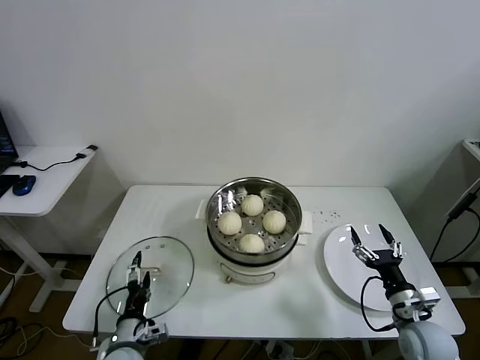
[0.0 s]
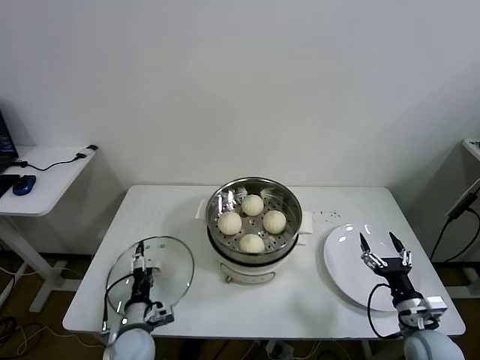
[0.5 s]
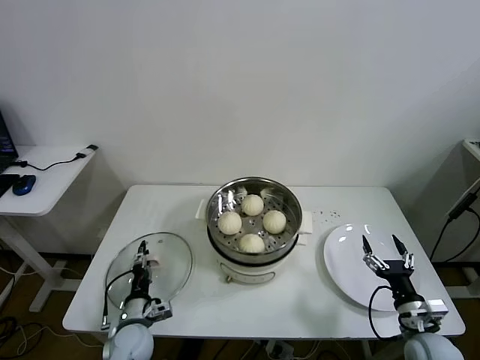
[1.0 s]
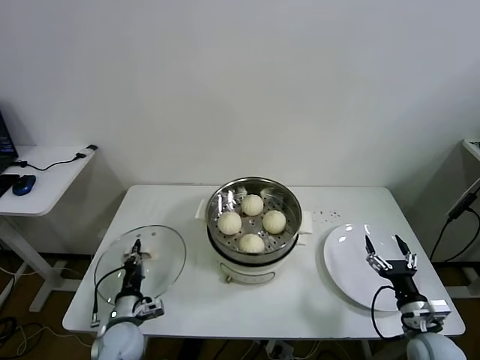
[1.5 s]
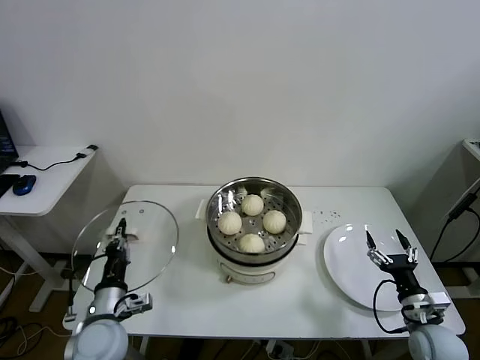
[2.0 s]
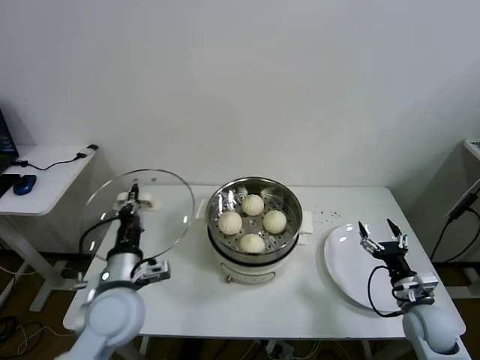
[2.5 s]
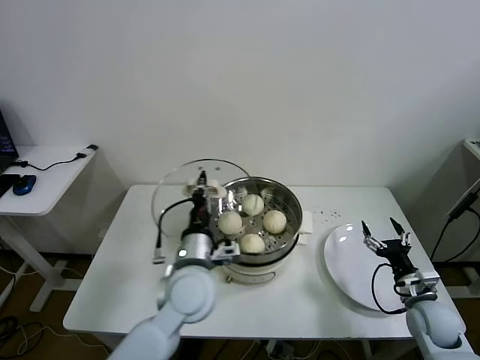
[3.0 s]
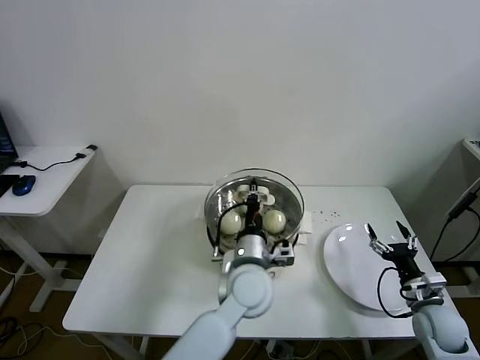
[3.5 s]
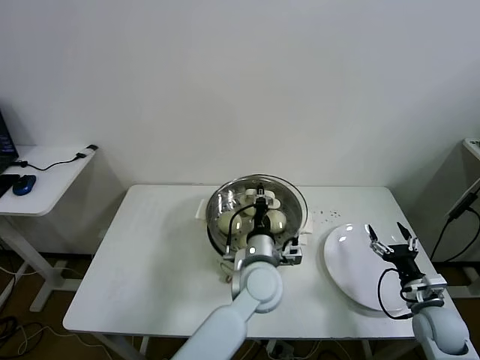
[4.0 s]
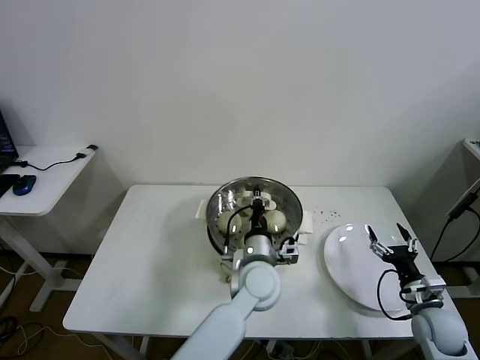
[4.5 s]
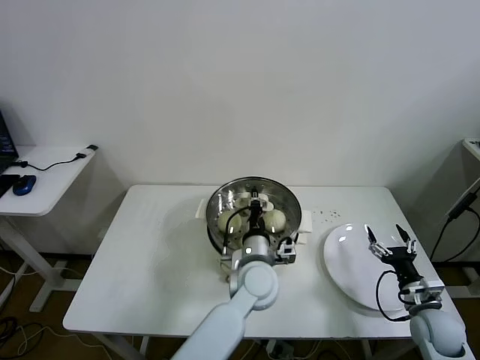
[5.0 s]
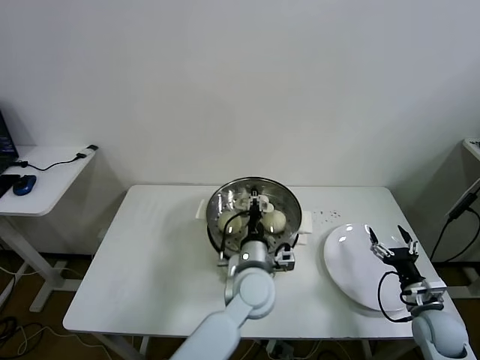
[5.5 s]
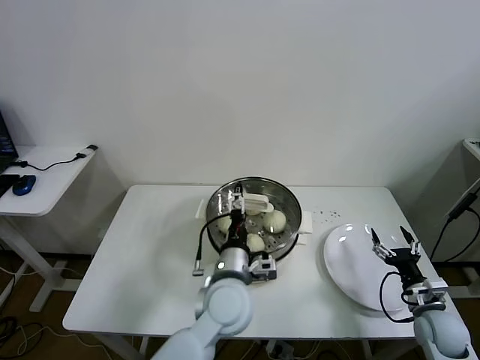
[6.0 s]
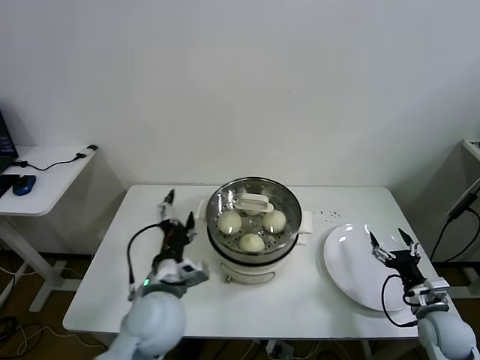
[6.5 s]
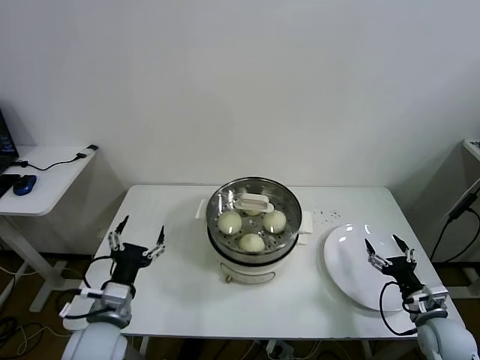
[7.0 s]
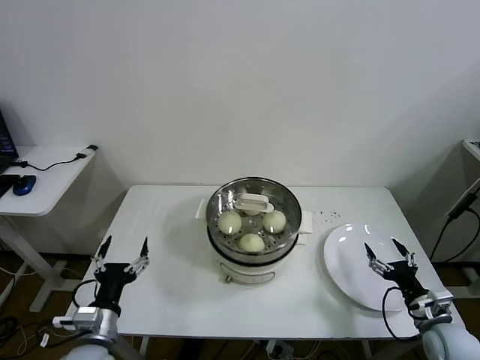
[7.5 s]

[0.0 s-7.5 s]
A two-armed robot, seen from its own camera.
Task of the whole recording: take steamed baozi put them in steamer.
Step, 1.5 to 5.5 s: Place the pot lid on the steamer with left gripper.
0.0 to 2.0 s: The left gripper shifts some 5 cm upward, and closes its fingers.
2.0 to 4.0 s: The left gripper is displaced to the right by about 30 cm.
4.0 to 5.5 s: The left gripper opens.
5.5 to 7.5 s: The left gripper travels to the left and backward by roughly 35 cm, and opens up.
